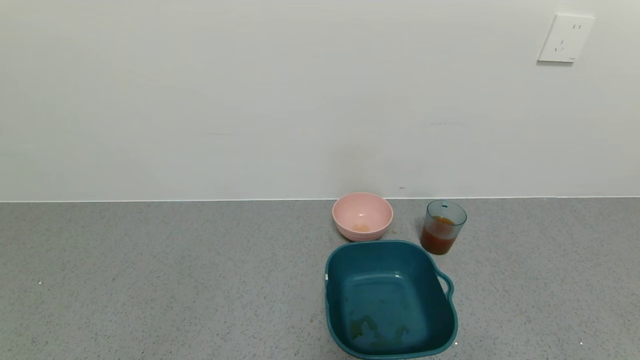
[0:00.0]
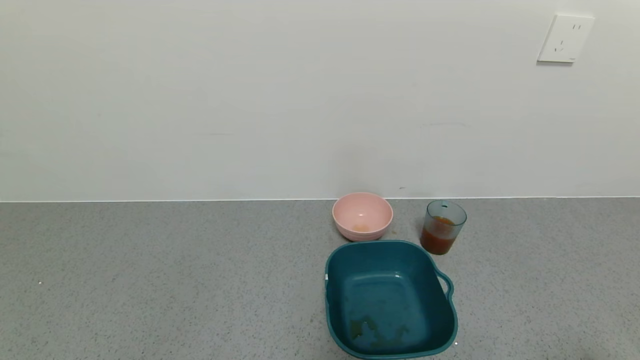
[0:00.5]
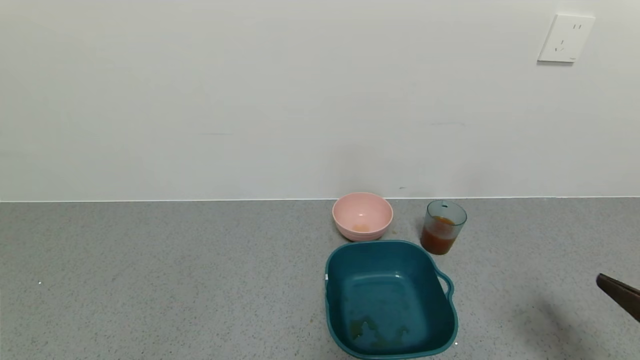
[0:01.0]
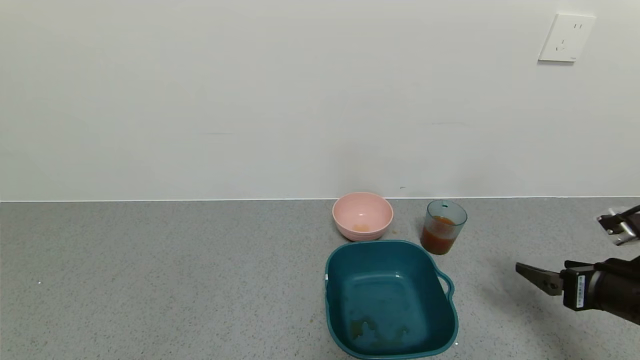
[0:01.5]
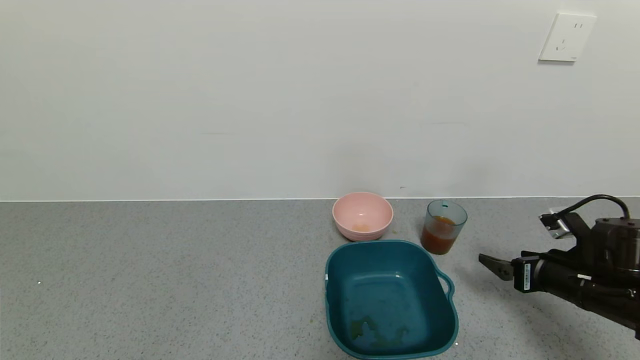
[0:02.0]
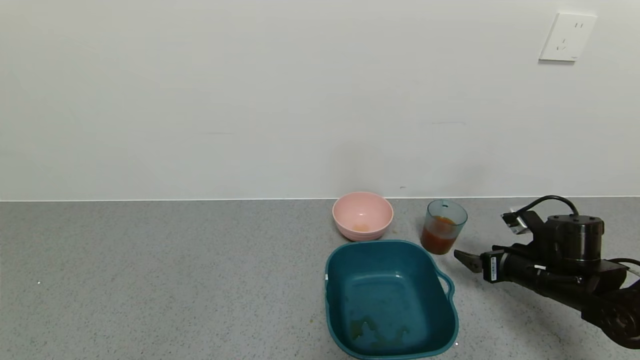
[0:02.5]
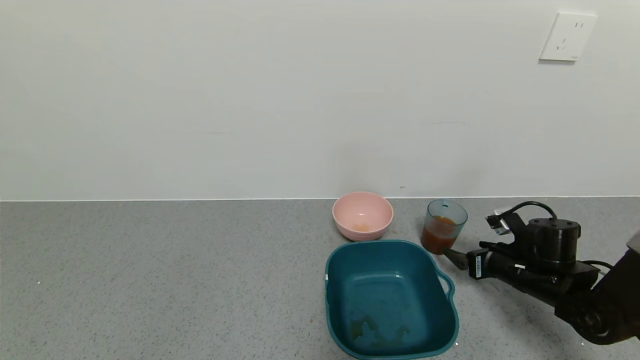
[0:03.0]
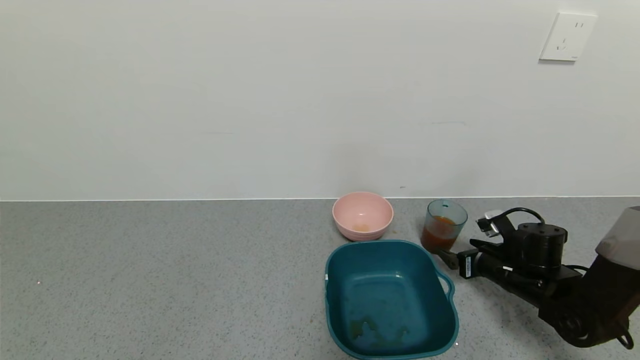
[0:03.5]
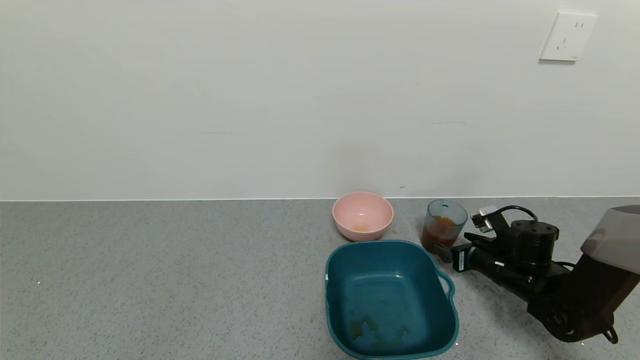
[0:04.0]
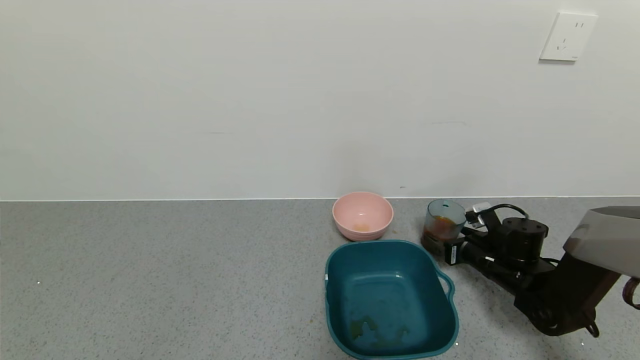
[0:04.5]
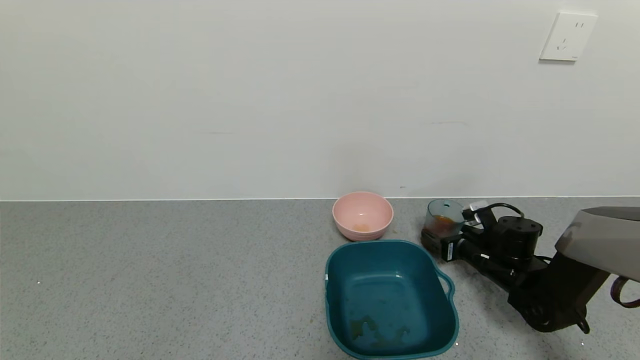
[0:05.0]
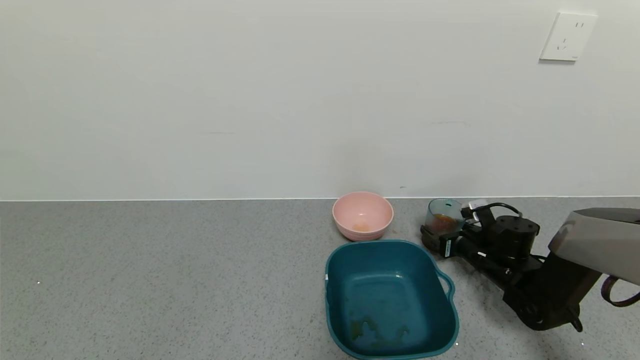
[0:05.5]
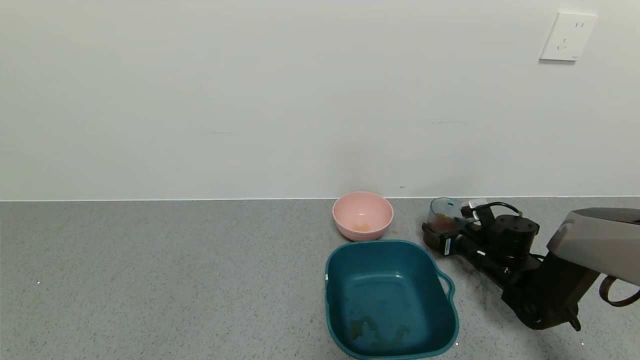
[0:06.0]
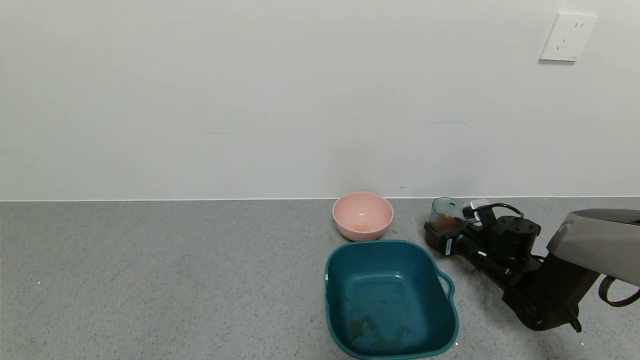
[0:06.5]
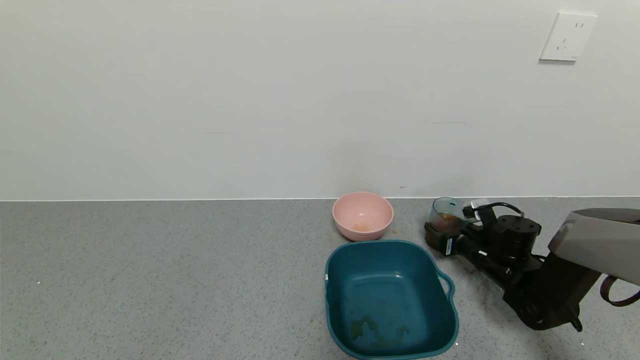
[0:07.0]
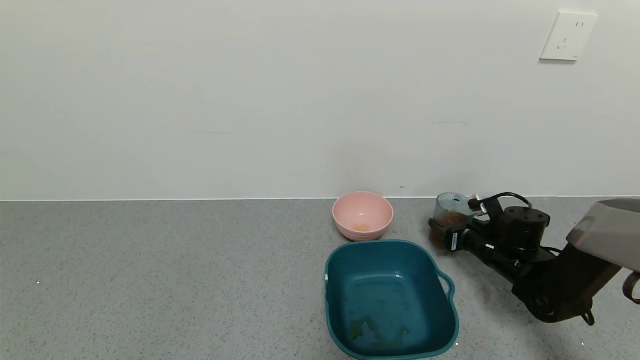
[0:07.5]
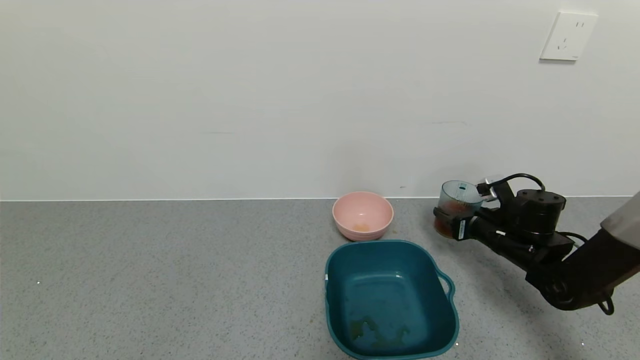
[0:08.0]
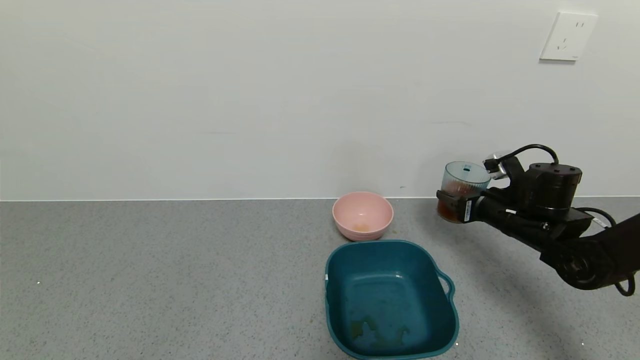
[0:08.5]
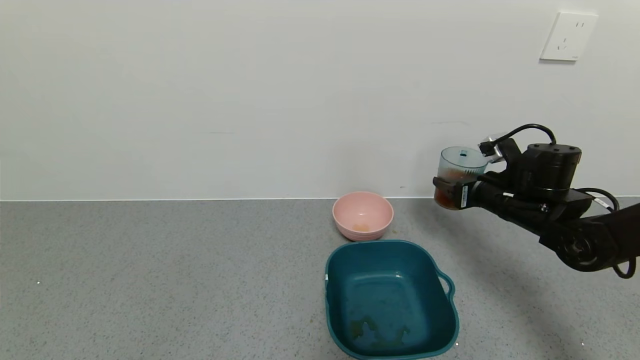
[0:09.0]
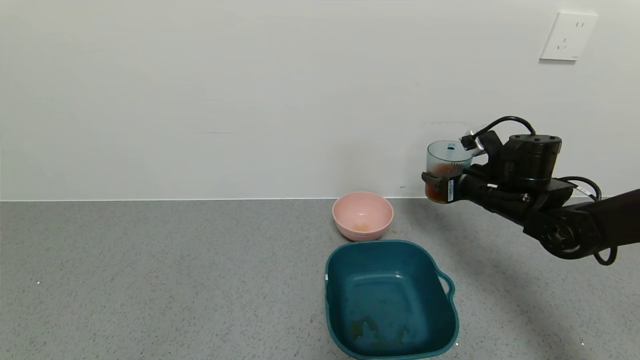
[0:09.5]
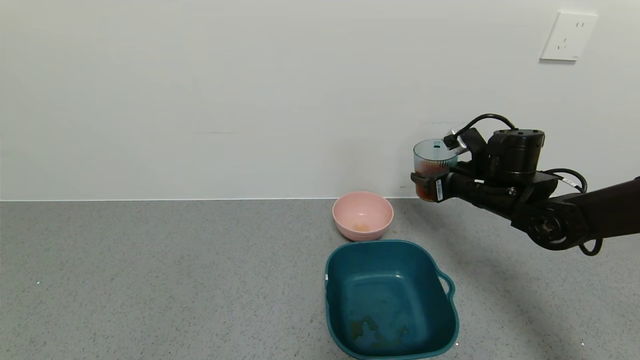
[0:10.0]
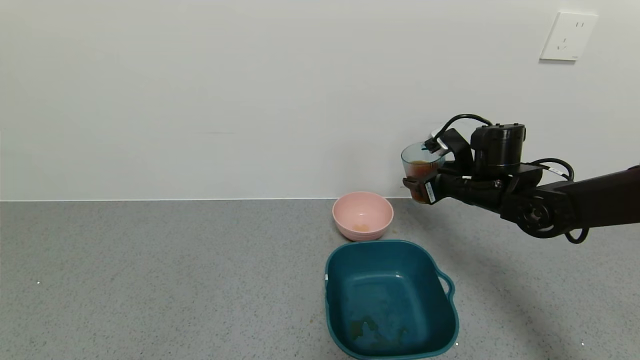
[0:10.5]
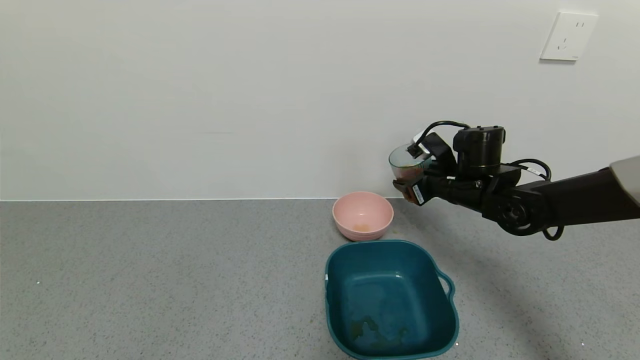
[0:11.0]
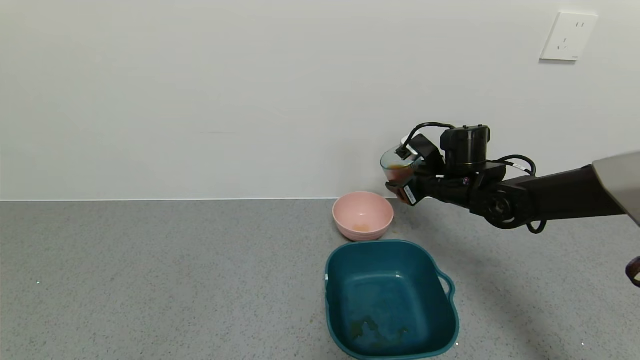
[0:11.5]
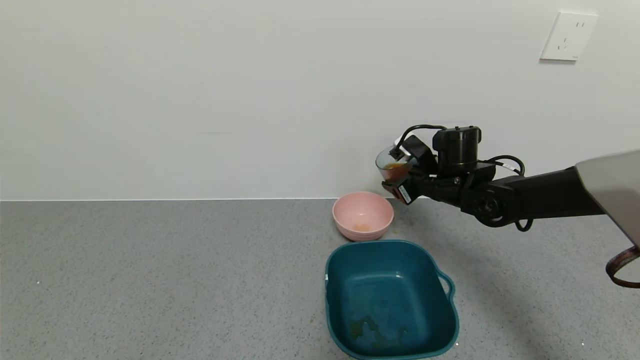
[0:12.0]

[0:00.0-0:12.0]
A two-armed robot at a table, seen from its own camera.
Task of the whole recording: use a gripper to pick up the cup and pour the liquid into a bowl or tray.
Step, 0:00.0 to 0:06.0: Pick up blue cup filled with tea with right gripper.
0:00.0 to 0:02.0: The right gripper is displaced forward by roughly 30 cm.
0:02.0 to 0:04.0: The right gripper shifts about 10 cm forward and downward.
0:04.0 to 0:06.0: The right gripper closes up.
0:06.0 to 0:08.0: The right gripper is displaced upward by about 5 cm, and closes up.
0:08.0 to 0:10.0: The right gripper goes roughly 10 cm upward and to the left.
0:10.0 to 0:12.0: The right gripper moves to the left, roughly 5 cm.

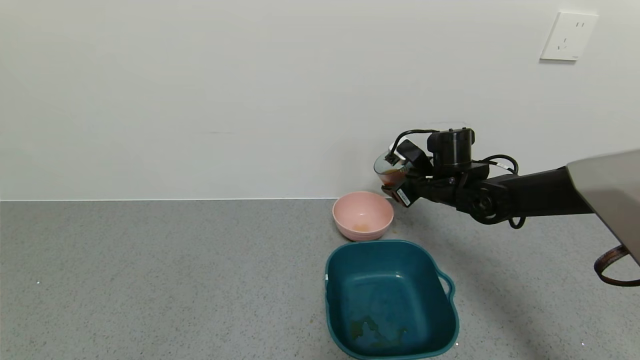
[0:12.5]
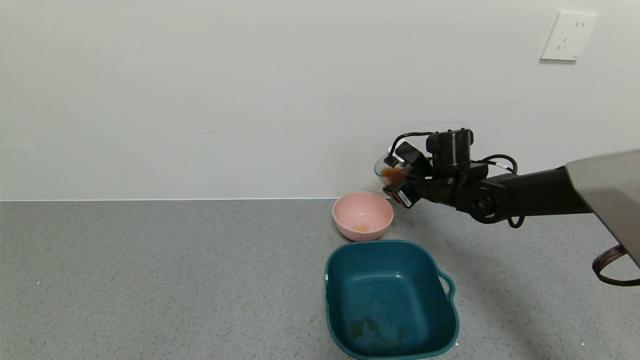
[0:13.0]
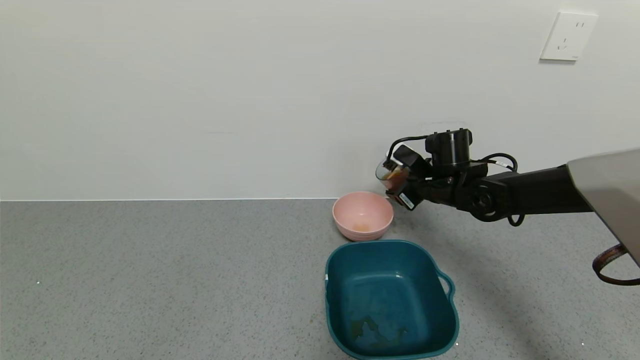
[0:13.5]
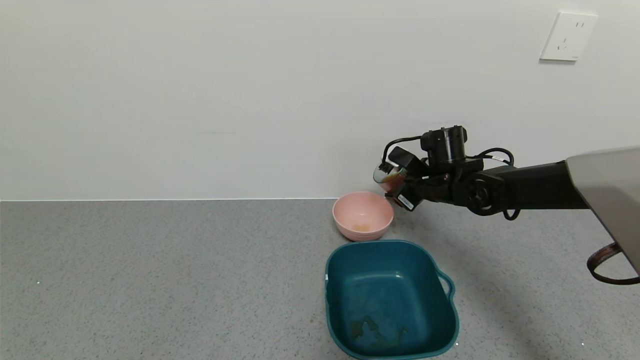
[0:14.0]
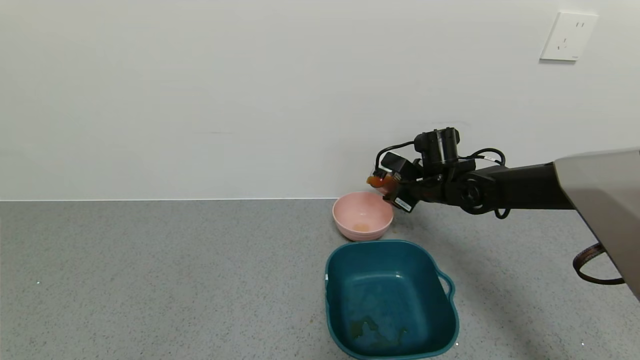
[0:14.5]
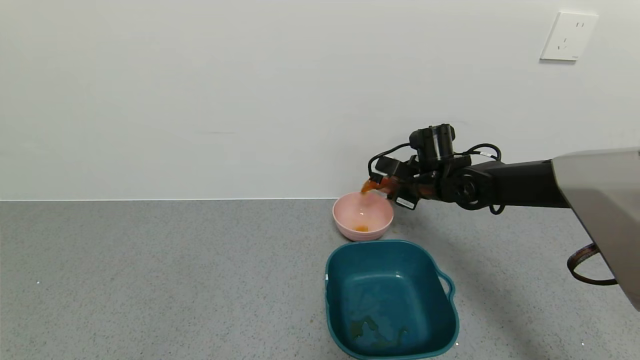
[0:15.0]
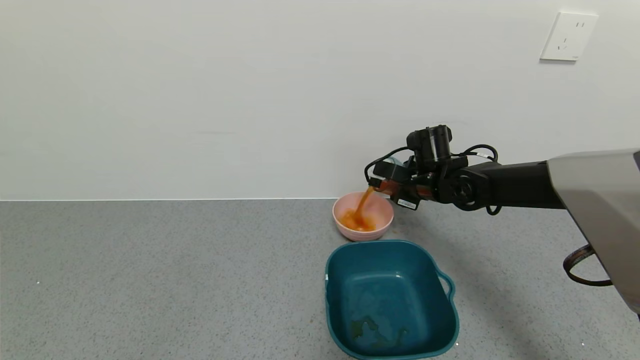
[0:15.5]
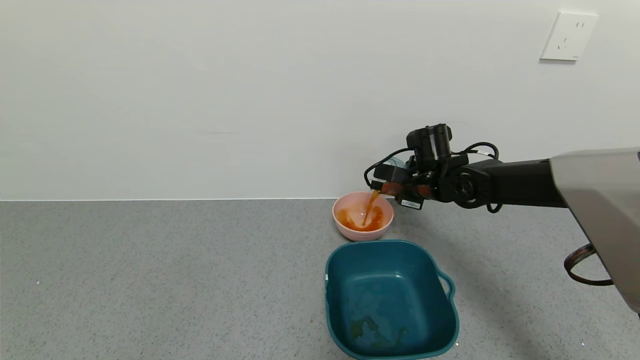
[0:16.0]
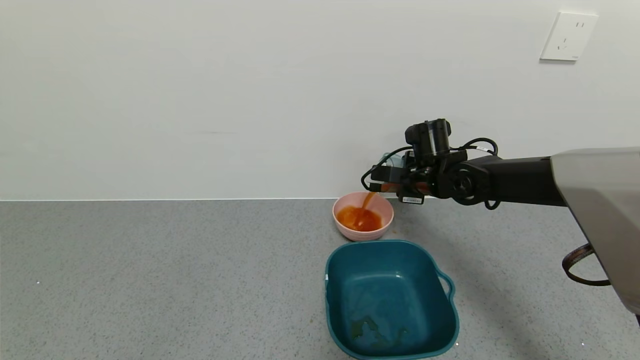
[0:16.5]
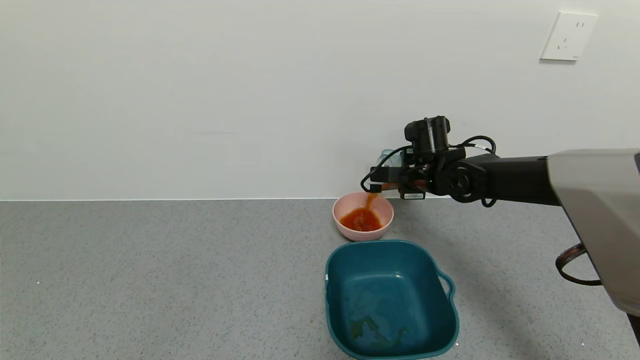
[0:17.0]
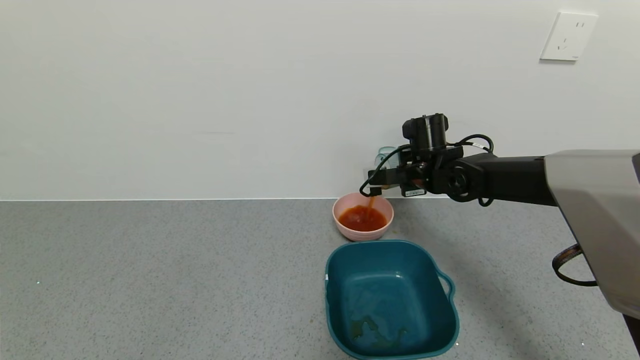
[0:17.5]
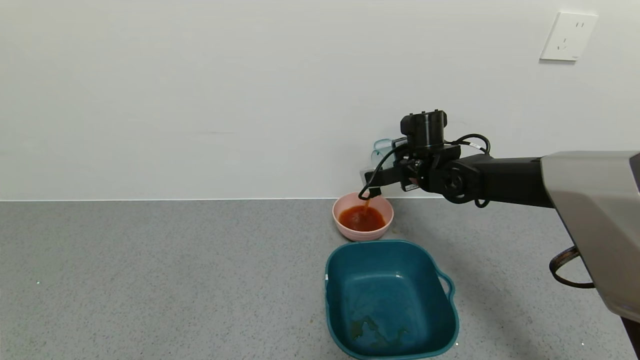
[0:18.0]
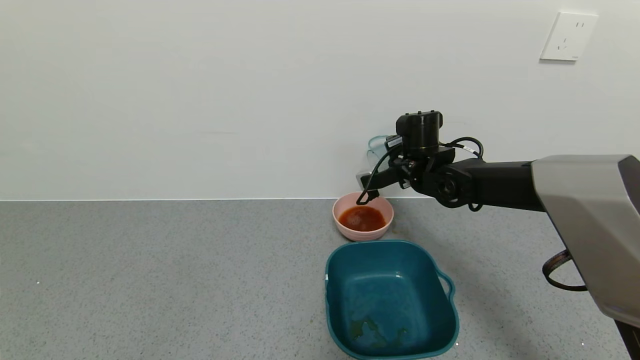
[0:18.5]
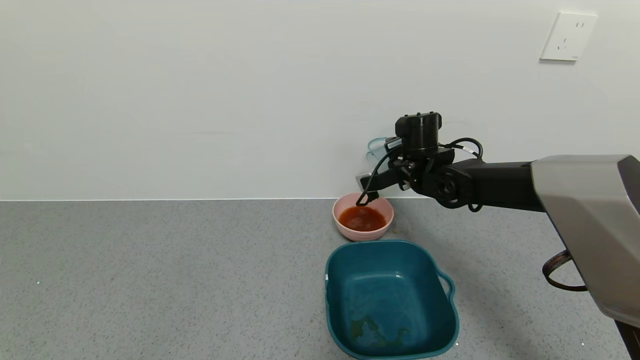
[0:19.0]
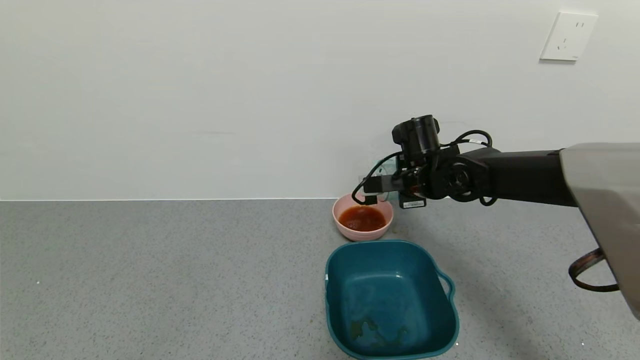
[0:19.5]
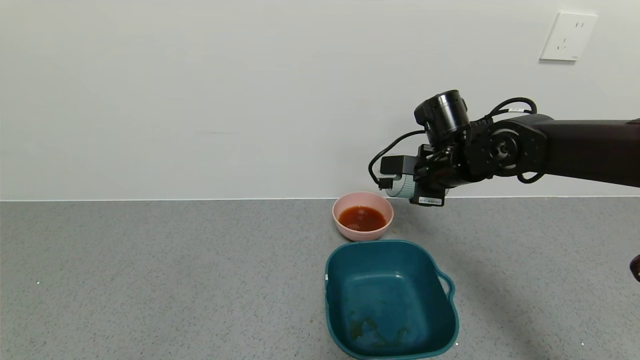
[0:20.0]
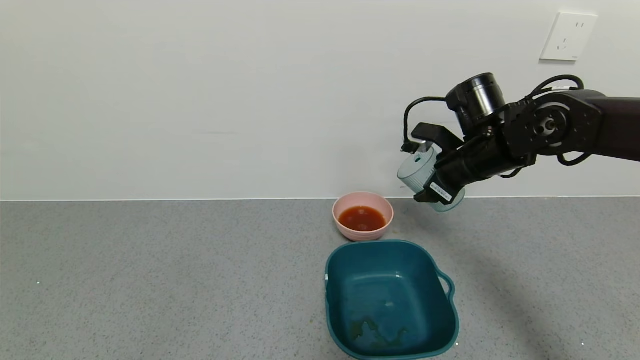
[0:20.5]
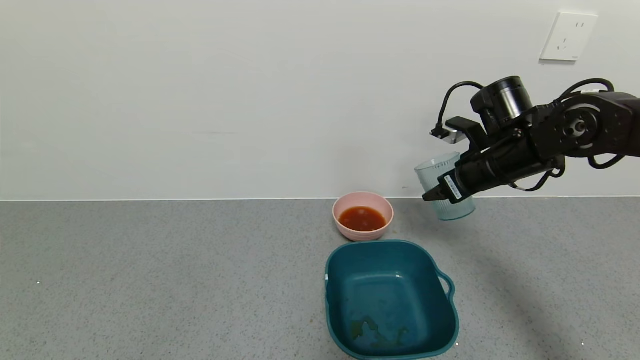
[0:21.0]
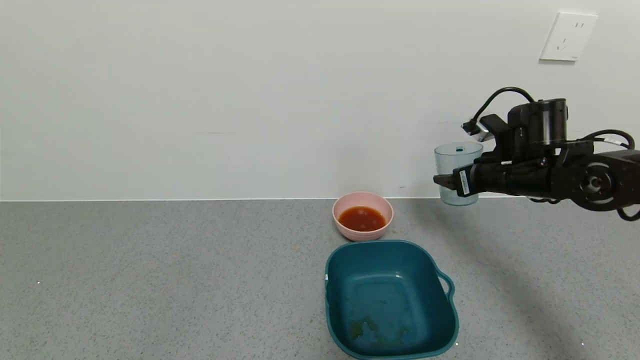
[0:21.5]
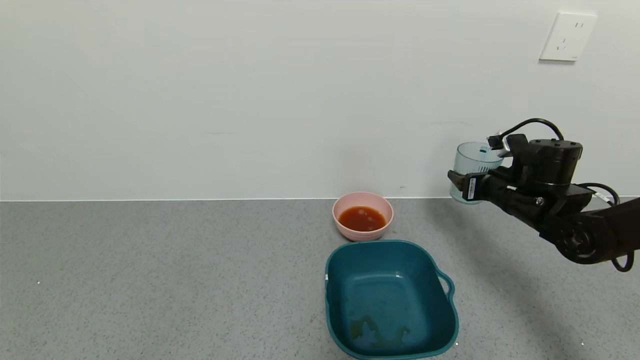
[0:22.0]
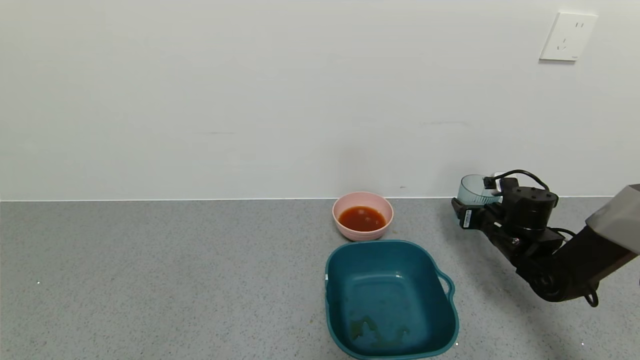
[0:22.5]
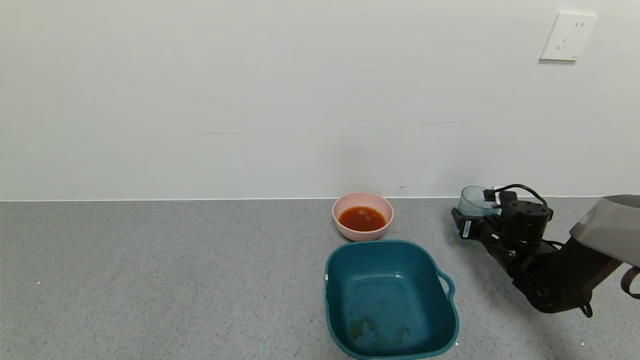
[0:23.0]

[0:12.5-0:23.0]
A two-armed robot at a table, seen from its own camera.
Task of the whole recording: use a gripper to pick up the cup and pour the liquid into a bowl or tray.
Step, 0:12.5 to 0:14.5: Pour the tea into the pink bowl with right gripper.
0:12.5 to 0:14.5: The grippers stay close to where they were, moving slightly.
0:19.0 to 0:21.0: The right gripper travels to the right, backward and upward by some 15 cm.
0:21.0 to 0:23.0: The right gripper is displaced downward and to the right by approximately 20 cm.
